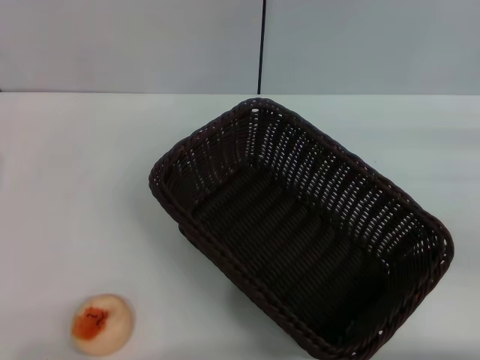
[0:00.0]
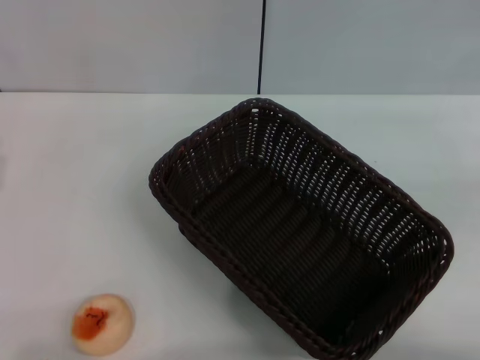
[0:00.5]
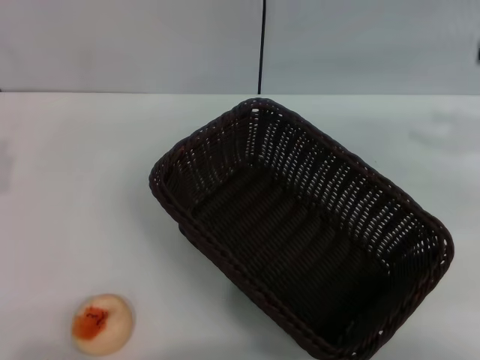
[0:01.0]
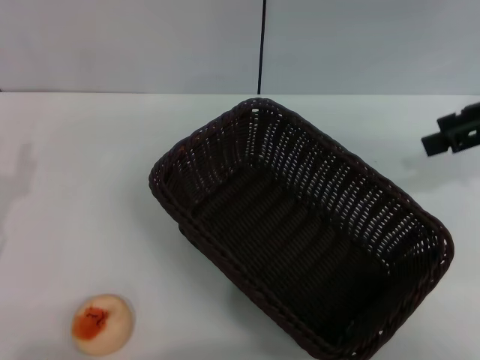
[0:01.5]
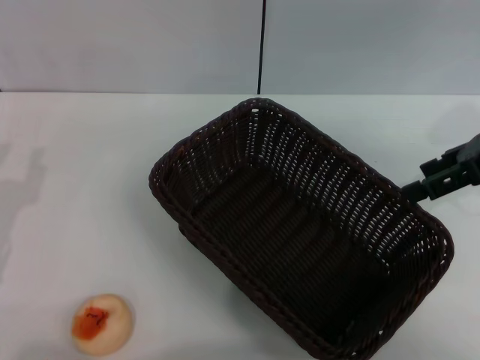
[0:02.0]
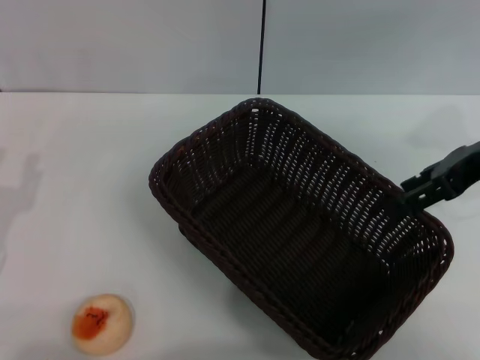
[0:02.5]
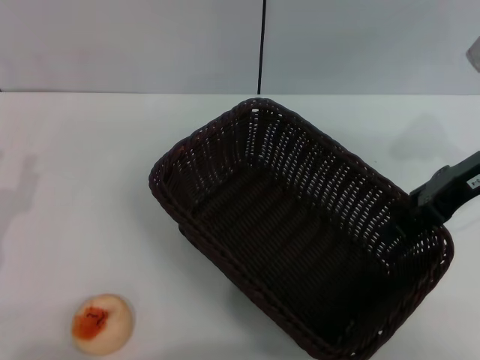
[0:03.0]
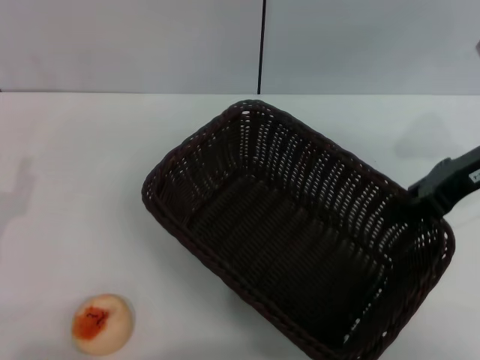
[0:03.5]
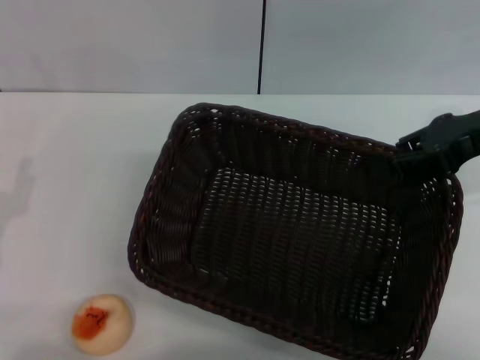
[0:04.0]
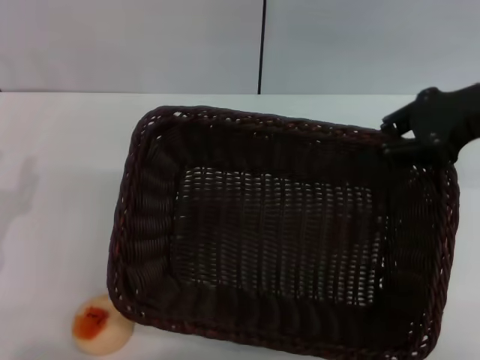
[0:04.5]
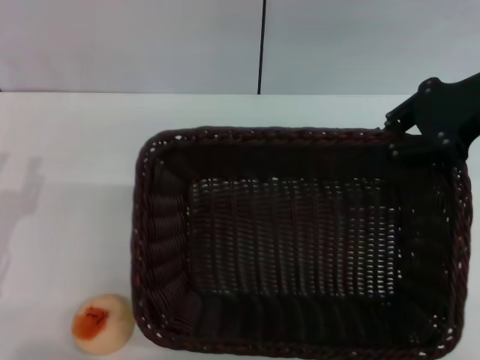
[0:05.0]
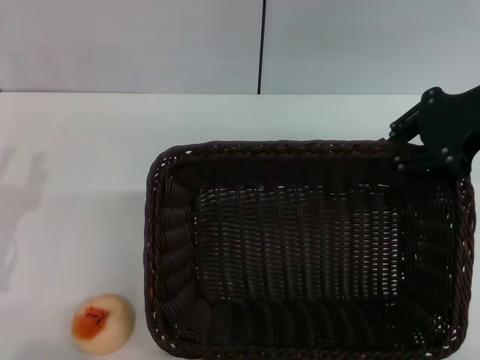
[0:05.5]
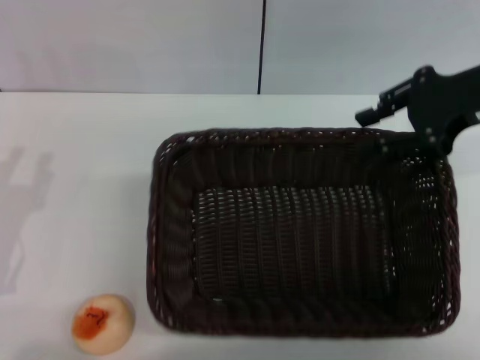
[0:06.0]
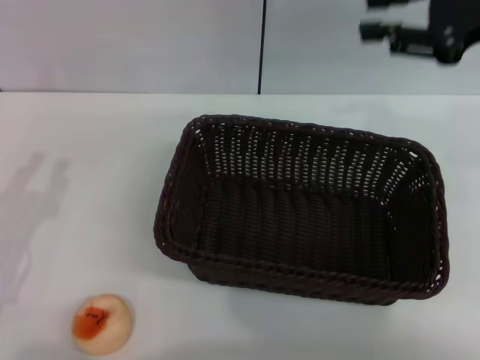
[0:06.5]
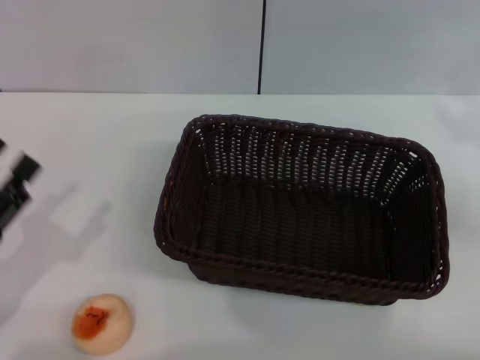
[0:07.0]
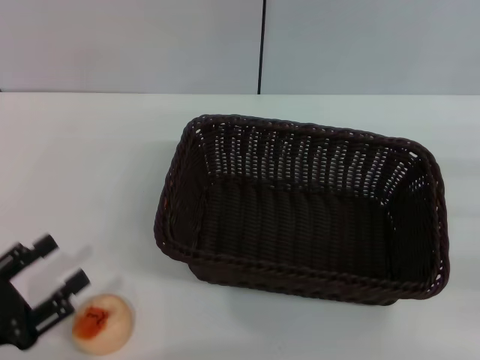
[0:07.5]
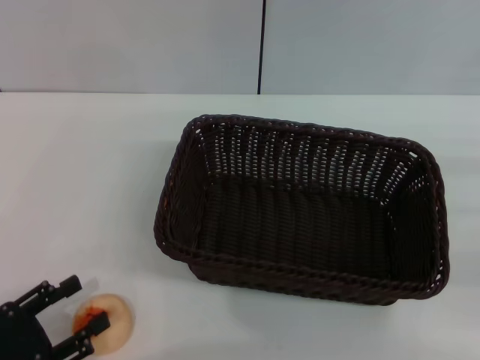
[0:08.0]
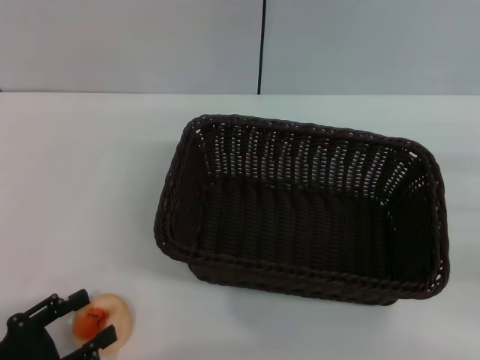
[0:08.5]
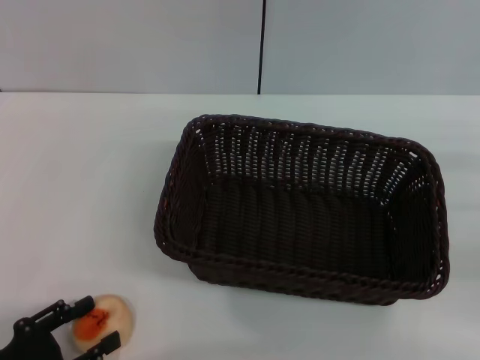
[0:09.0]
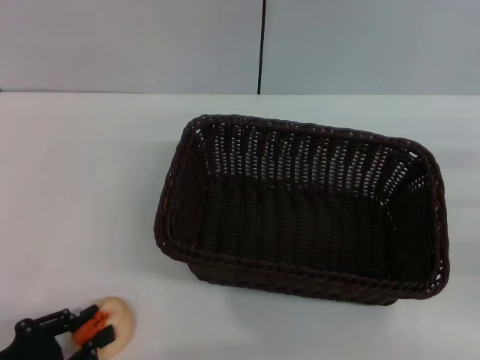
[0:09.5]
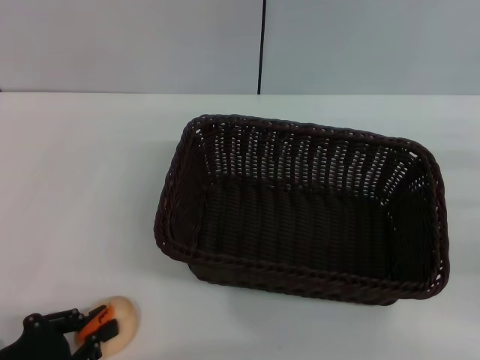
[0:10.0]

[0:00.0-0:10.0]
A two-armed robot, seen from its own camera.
Step, 0:00.0 to 0:06.0: Move the basket to the center of view with the right gripper.
0:00.0 to 0:02.0: The right gripper shifts roughly 15 cm to the left, upward and forward.
0:02.0 to 0:04.0: The right gripper closes.
0:06.0 to 0:08.0: The left gripper goes approximately 10 cm backward and downward; the right gripper shifts roughly 25 cm to the right, downward and backward.
0:08.0 to 0:10.0: The left gripper closes its fingers.

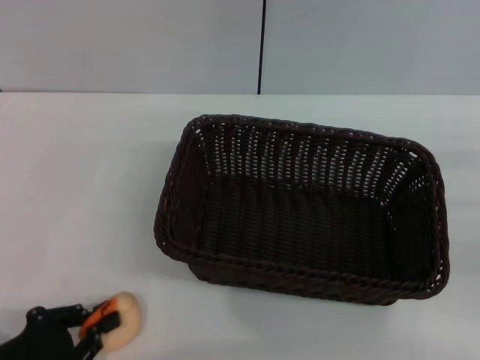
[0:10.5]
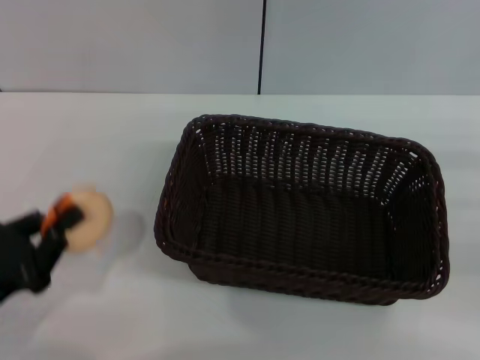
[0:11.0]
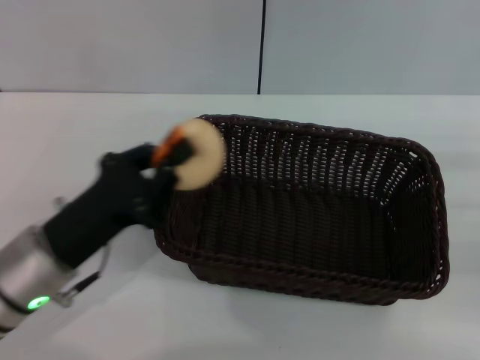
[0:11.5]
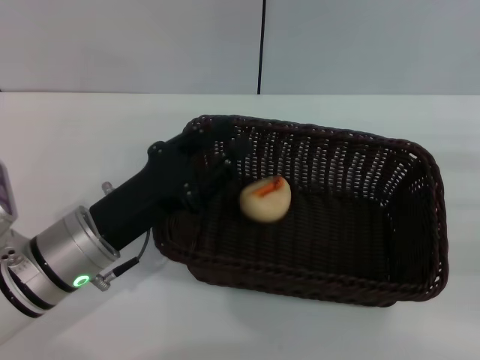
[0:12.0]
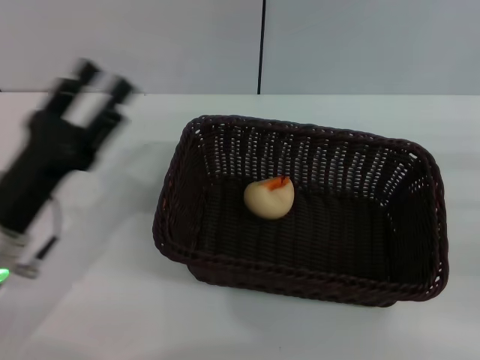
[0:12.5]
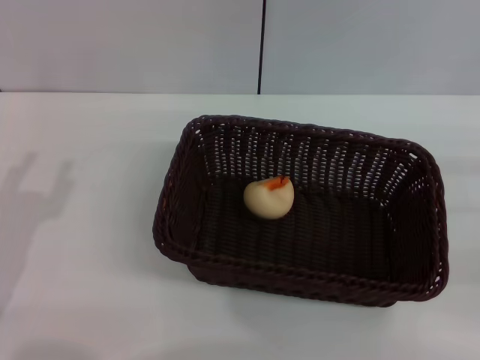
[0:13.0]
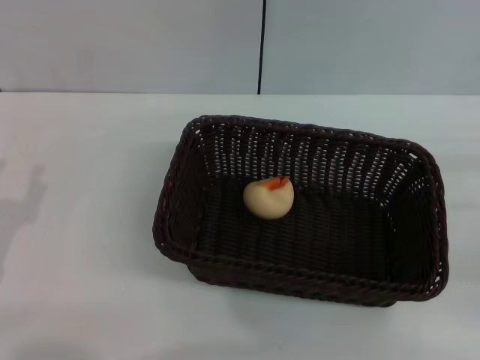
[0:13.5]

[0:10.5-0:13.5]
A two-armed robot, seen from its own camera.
Step, 0:11.5 to 0:12.0: Place the egg yolk pastry into the basket with the left gripper.
0:10.5 to 0:12.0: The left gripper shifts some 15 cm forward and to the right.
0:12.0 to 0:13.5: The left gripper moves to the left and backward, approximately 15 cm, and opens.

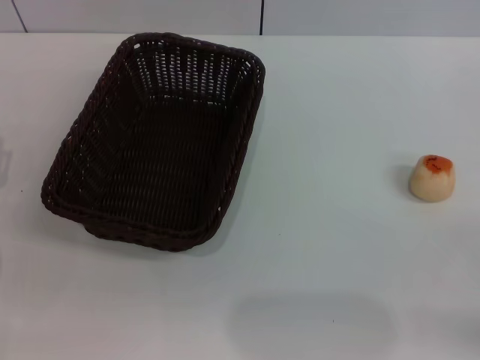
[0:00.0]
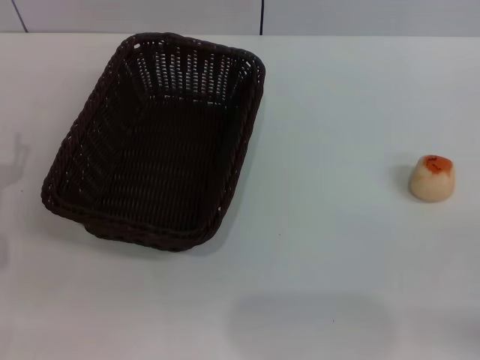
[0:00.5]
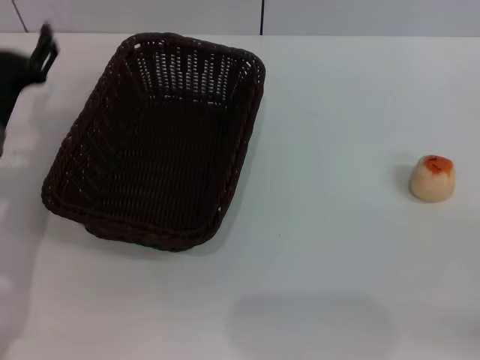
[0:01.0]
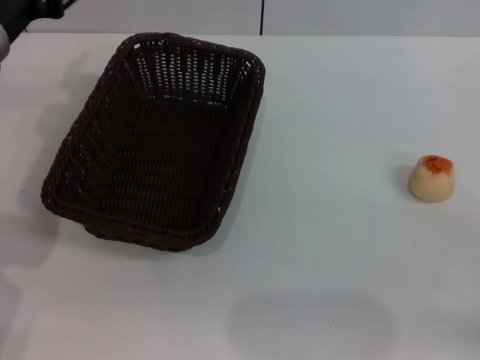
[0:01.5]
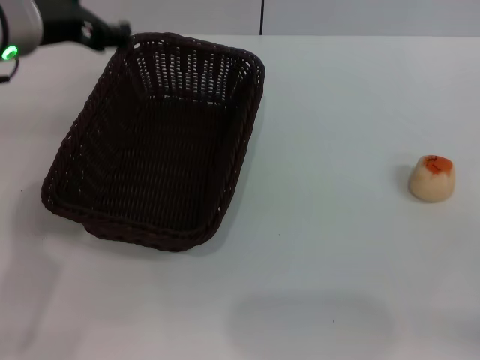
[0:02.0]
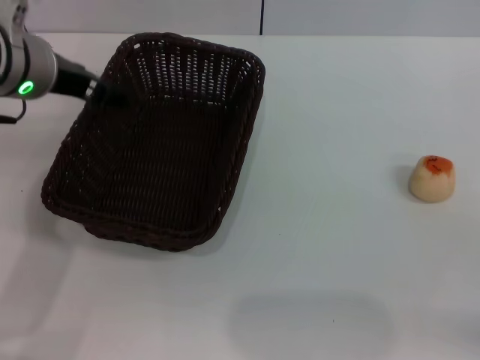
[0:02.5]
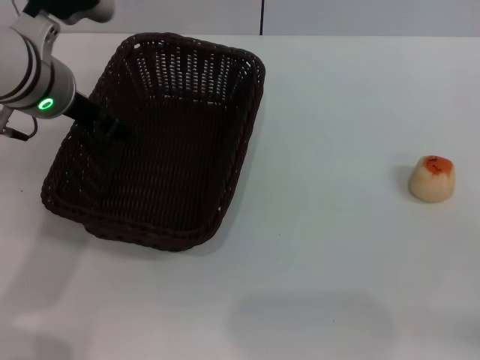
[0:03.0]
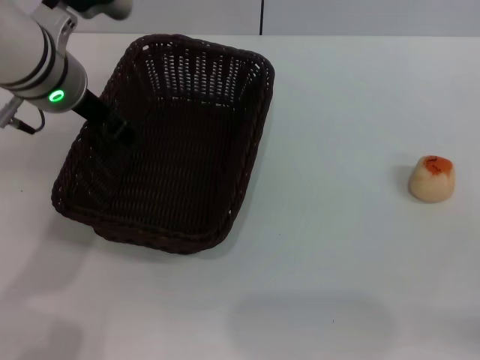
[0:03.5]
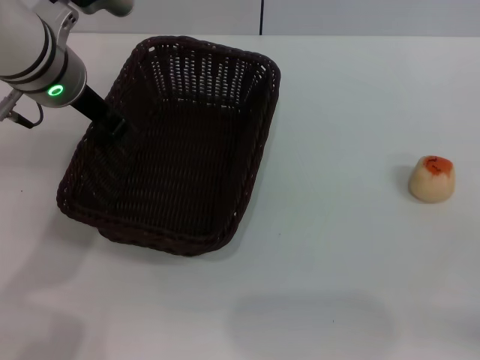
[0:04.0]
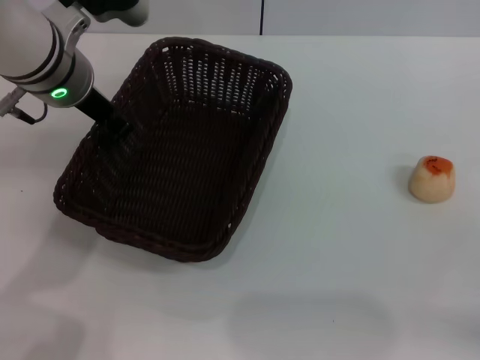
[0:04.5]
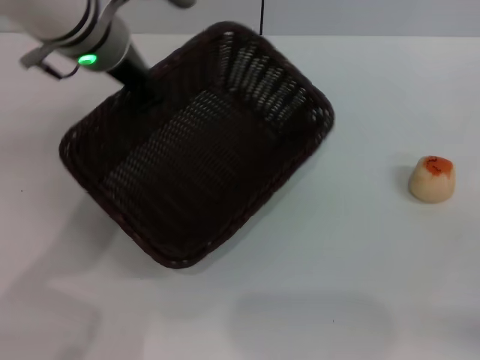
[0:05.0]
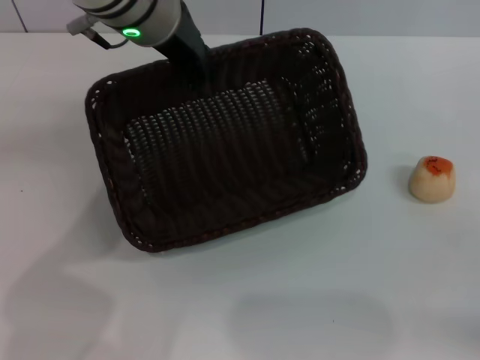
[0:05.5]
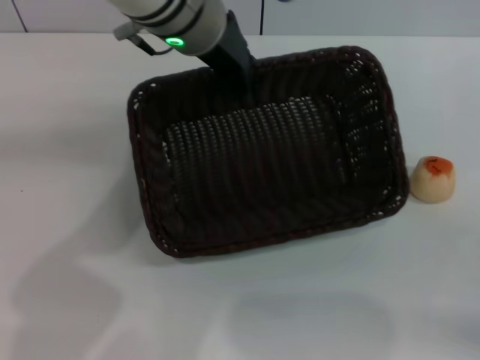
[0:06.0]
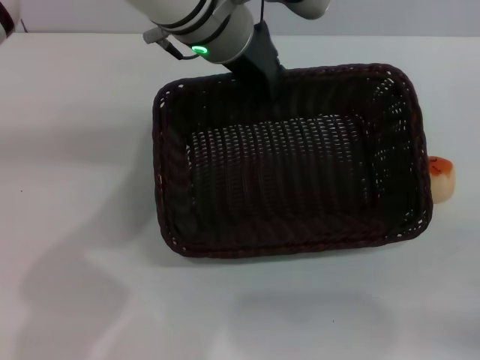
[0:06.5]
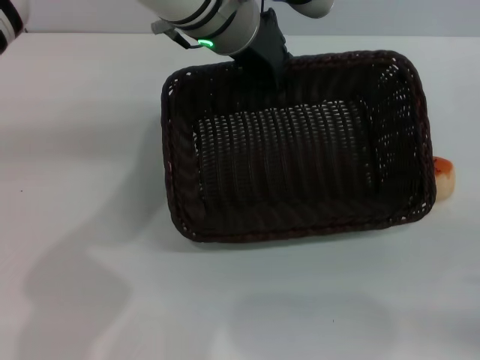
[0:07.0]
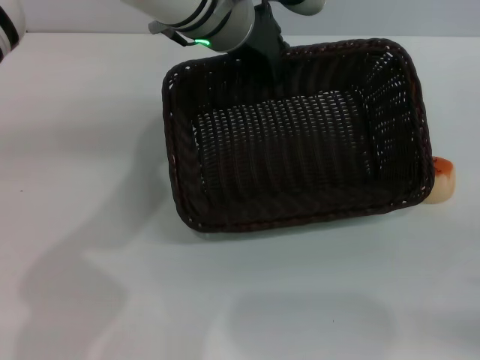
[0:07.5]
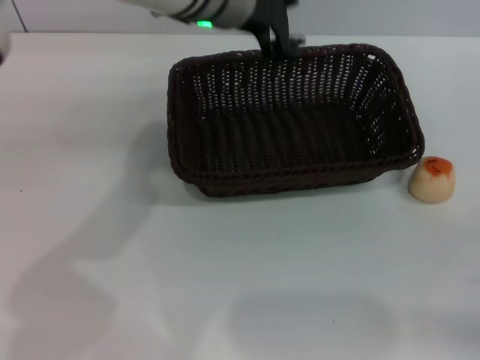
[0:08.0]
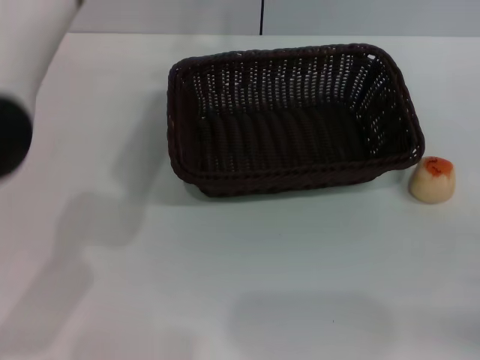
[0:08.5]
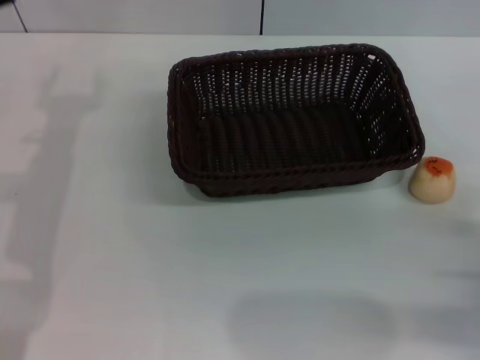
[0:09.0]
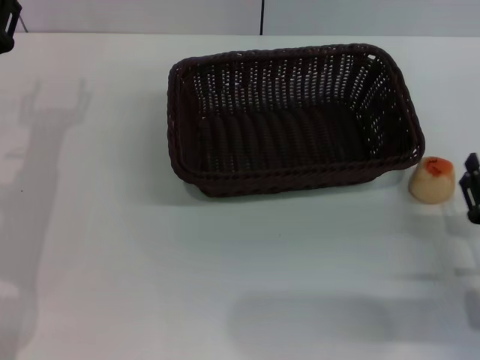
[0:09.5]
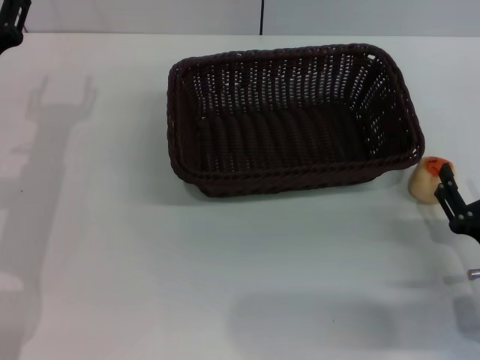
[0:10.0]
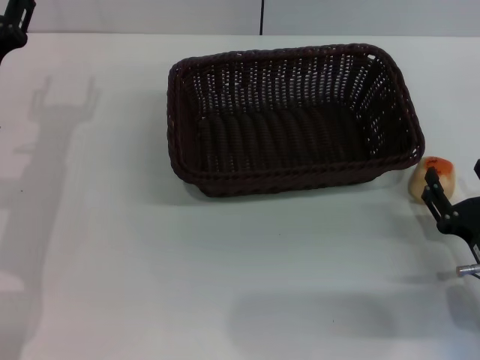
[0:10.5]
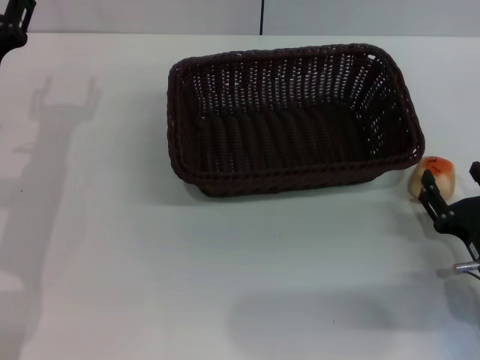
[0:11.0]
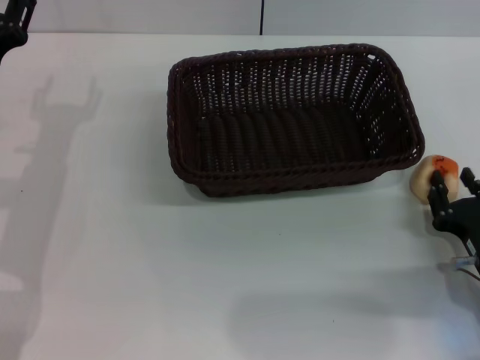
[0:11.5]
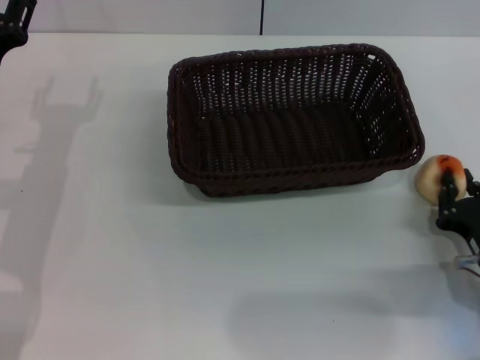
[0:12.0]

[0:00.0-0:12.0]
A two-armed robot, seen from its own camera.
Step, 0:00.0 to 0:07.5: Move the basket to the center of view with the left gripper.
0:00.0 to 0:02.0: The left gripper is displaced upward, to the right and forward by about 25 cm.
0:02.0 to 0:04.0: The left gripper moves approximately 5 cm, and closes.
0:04.0 to 0:06.0: The left gripper heads to the right, covering some 10 cm, and closes its fingers.
0:06.0 to 0:08.0: The left gripper opens its fingers.
0:08.0 to 0:10.0: The left gripper heads to the left, downward and backward, covering about 25 cm, and opens its fingers, while the right gripper moves to the left, some 5 cm.
0:10.0 to 0:12.0: The right gripper closes.
